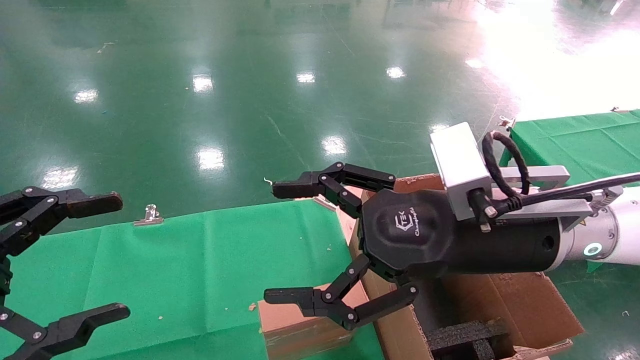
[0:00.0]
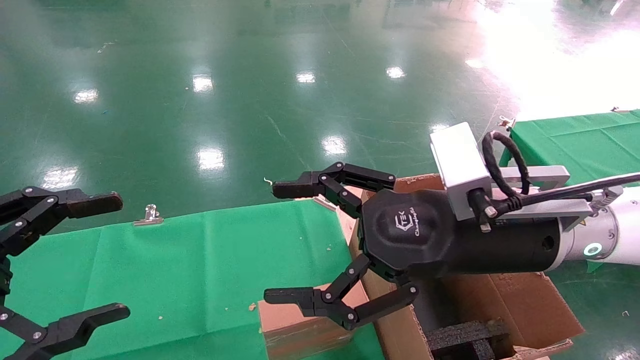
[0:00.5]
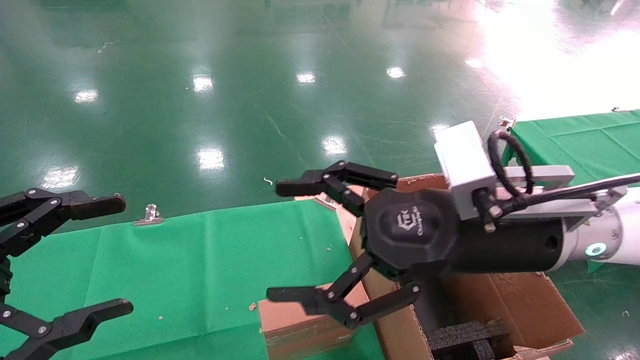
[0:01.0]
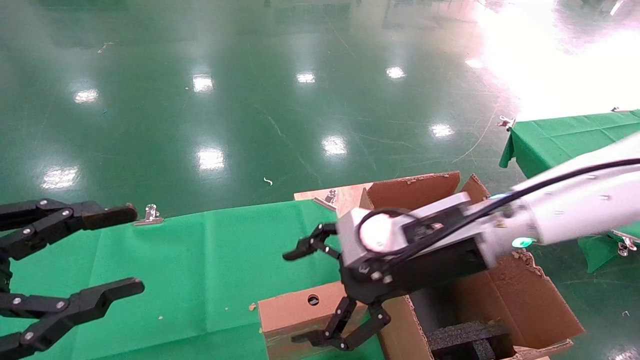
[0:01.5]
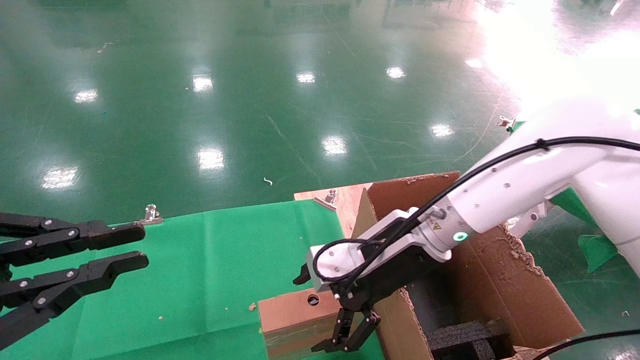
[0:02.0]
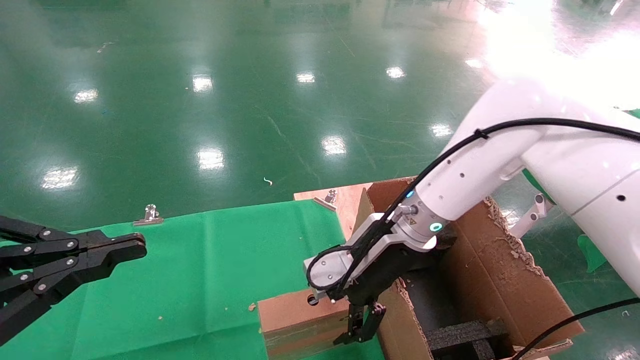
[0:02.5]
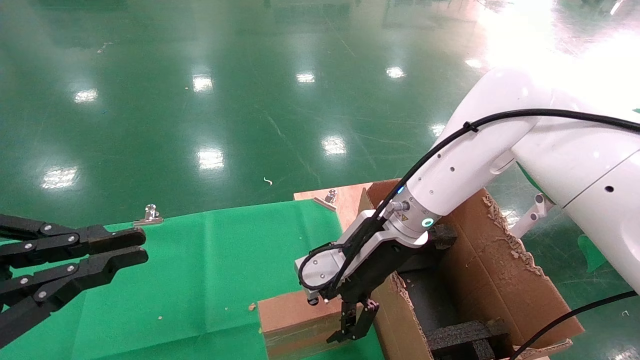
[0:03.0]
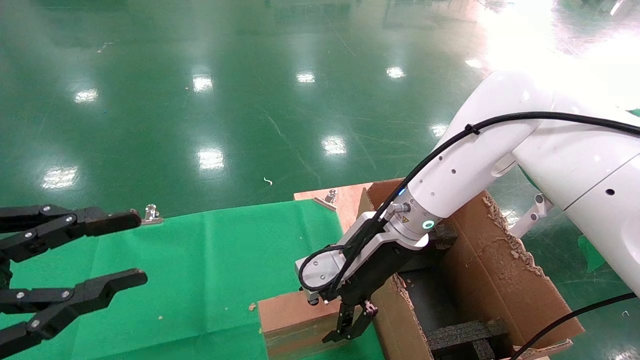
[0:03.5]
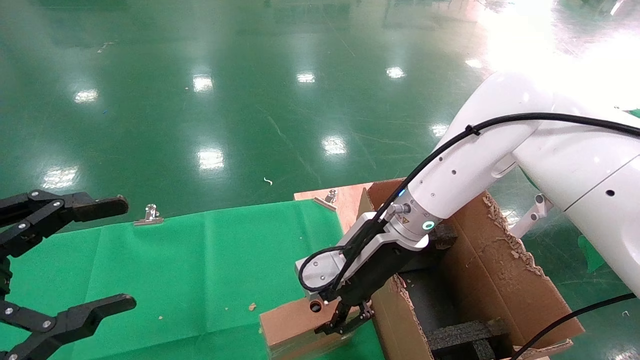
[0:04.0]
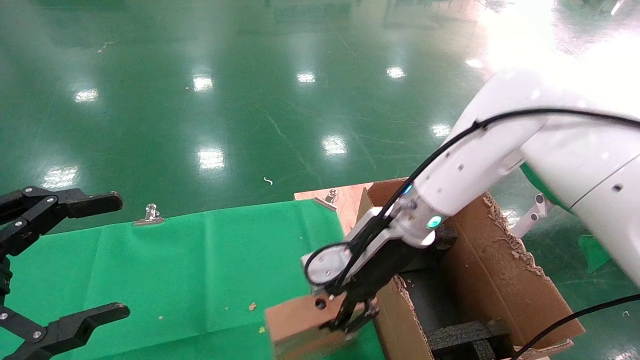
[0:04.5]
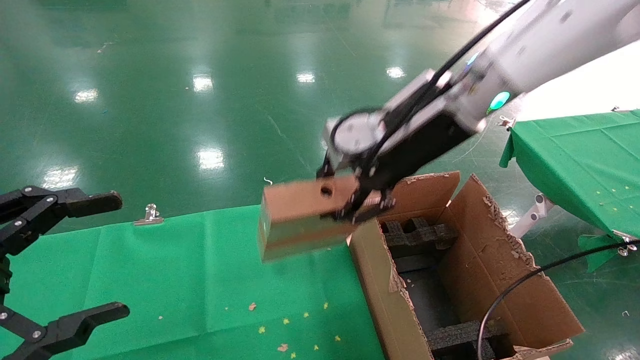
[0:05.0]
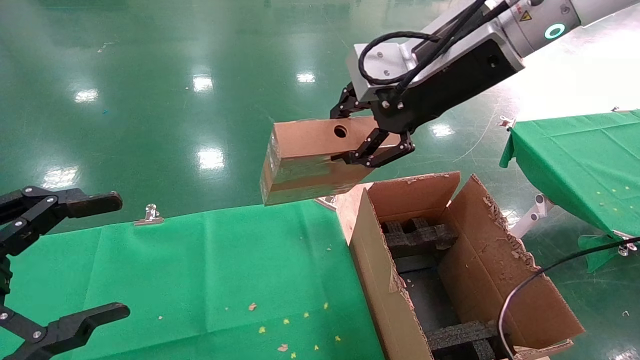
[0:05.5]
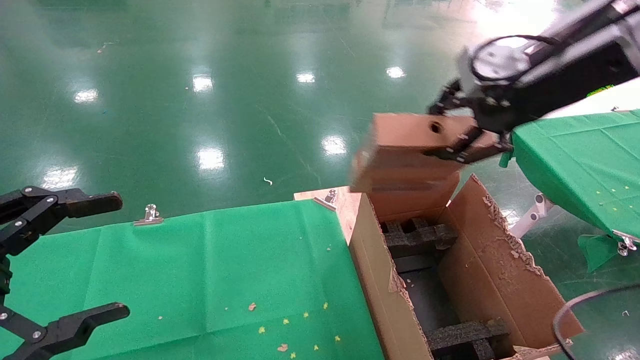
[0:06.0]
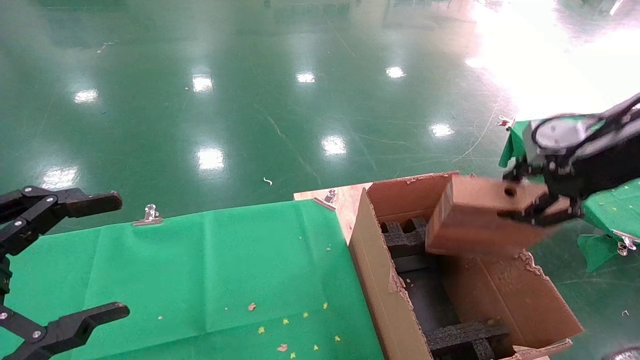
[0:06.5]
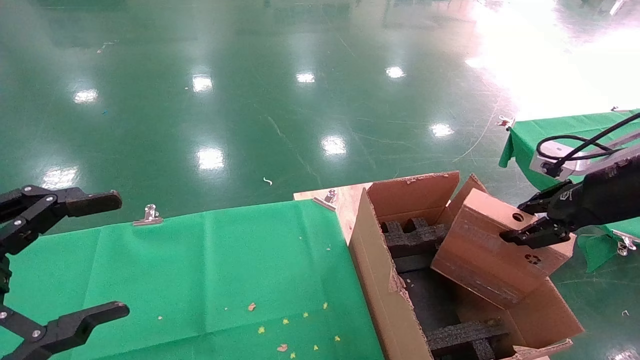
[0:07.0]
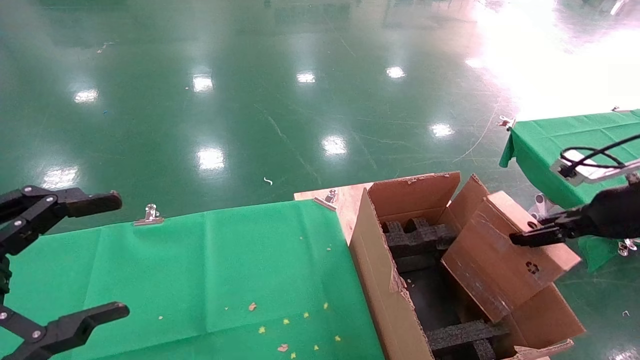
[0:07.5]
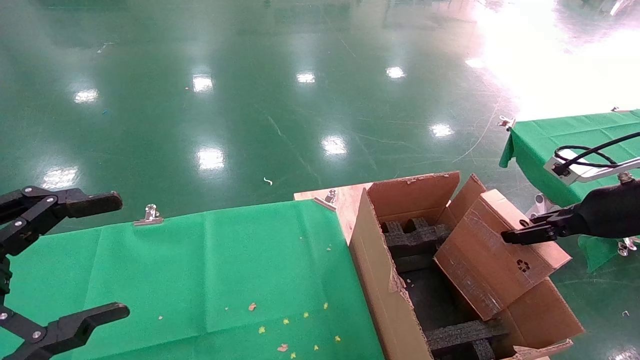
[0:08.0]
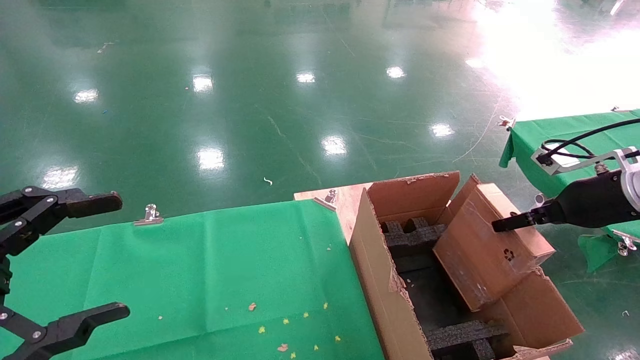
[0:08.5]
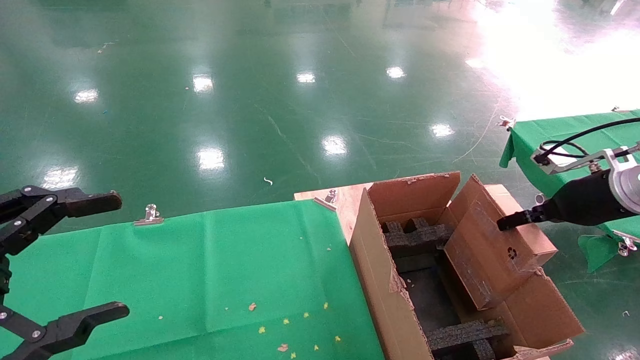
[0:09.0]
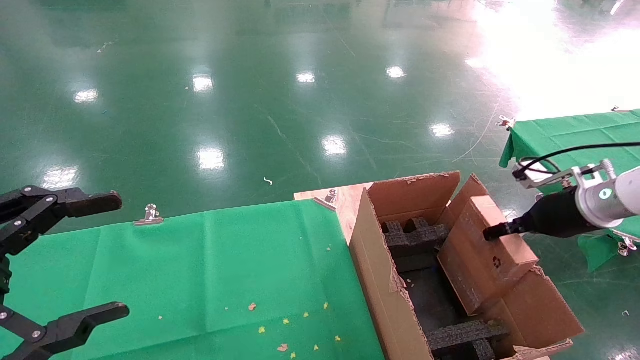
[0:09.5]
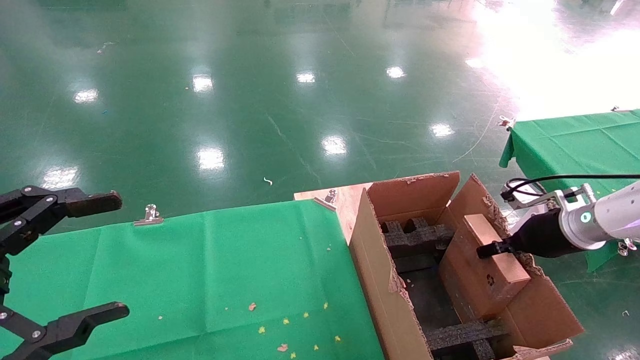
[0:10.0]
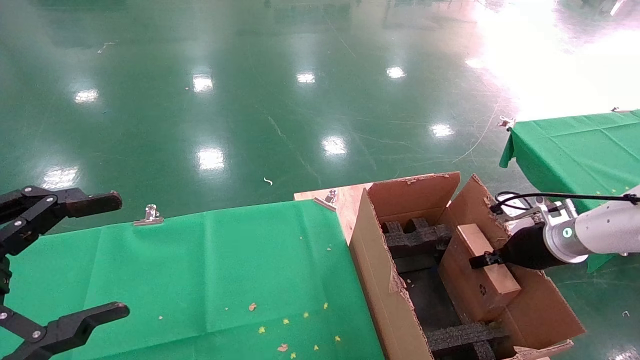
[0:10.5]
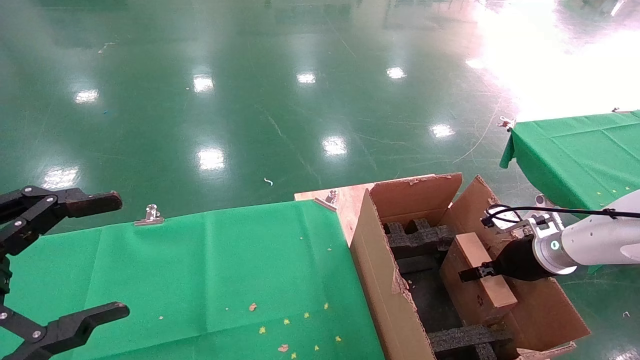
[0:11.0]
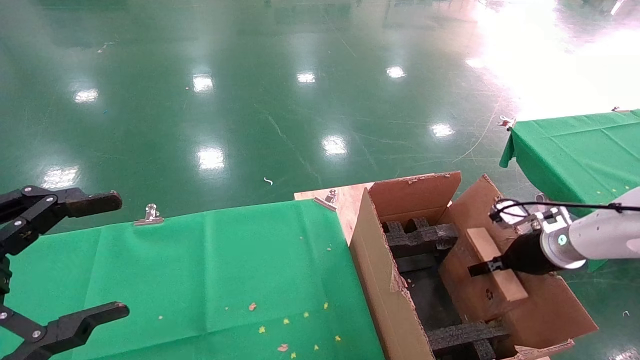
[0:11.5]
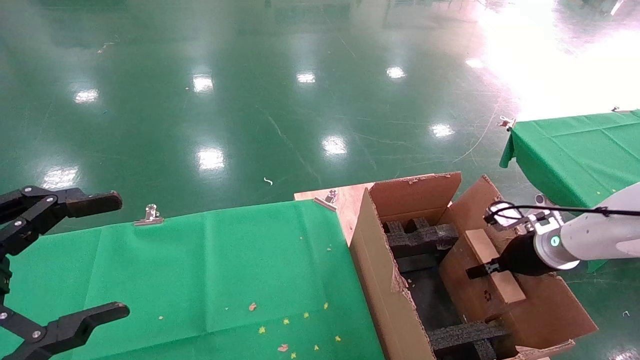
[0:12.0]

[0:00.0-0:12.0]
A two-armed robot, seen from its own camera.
Task of the whole recording: using a robotic arm to pick up a cardboard box and palace it the carton.
Step, 0:01.5 to 0:03.5: Pick up the mouse and the power cord paper box.
0:00.0 to 0:02.0: The right gripper heads forward and downward, covering roughly 10 cm; the left gripper closes up.
0:02.0 to 0:04.0: The right gripper closes. Meanwhile the left gripper opens its fingers.
0:04.0 to 0:06.0: The right gripper is displaced upward and to the right by some 30 cm.
0:06.0 to 0:08.0: The right gripper is displaced downward and to the right by about 25 cm.
0:08.0 to 0:10.0: The right gripper travels downward and forward by approximately 10 cm.
0:10.0 to 0:12.0: The right gripper goes about 5 cm downward.

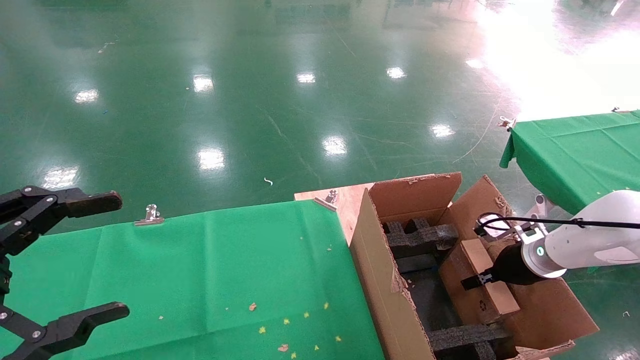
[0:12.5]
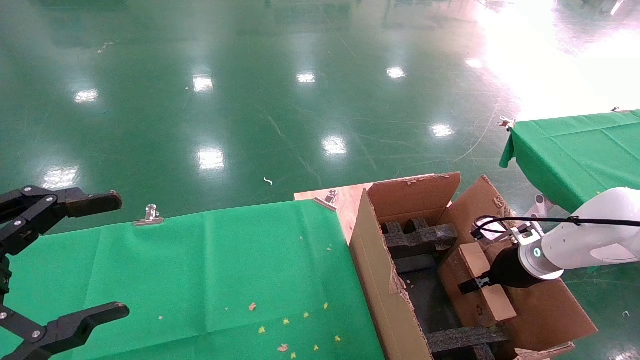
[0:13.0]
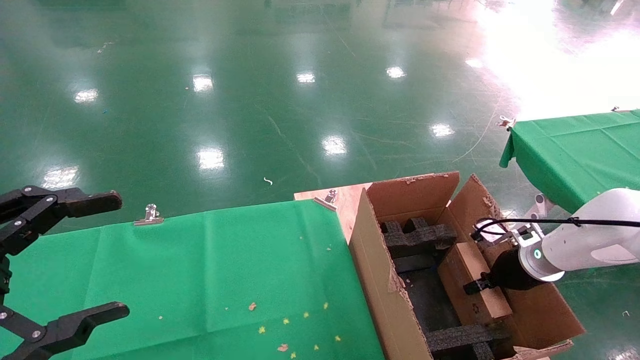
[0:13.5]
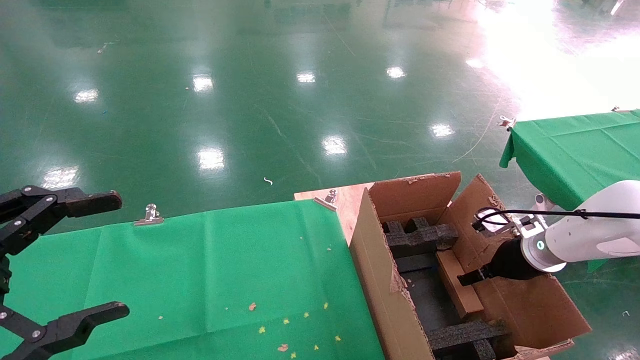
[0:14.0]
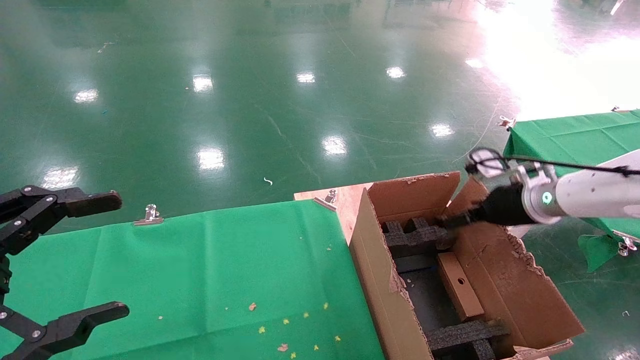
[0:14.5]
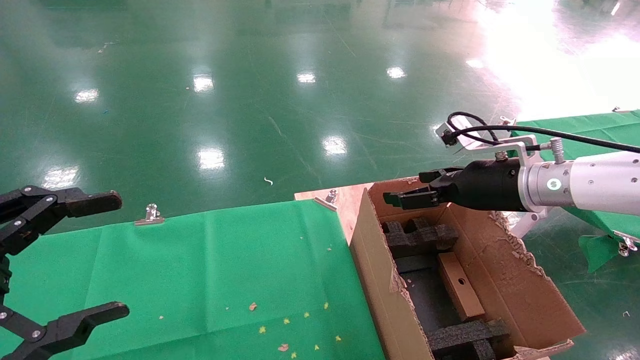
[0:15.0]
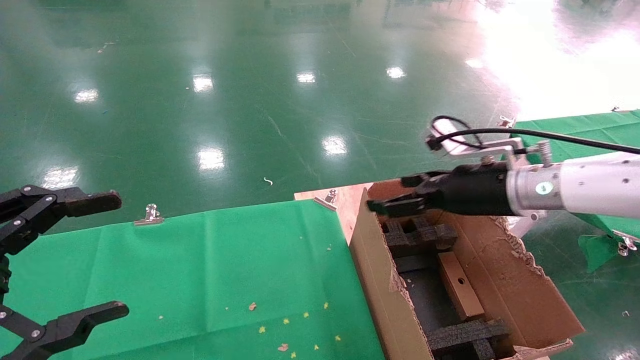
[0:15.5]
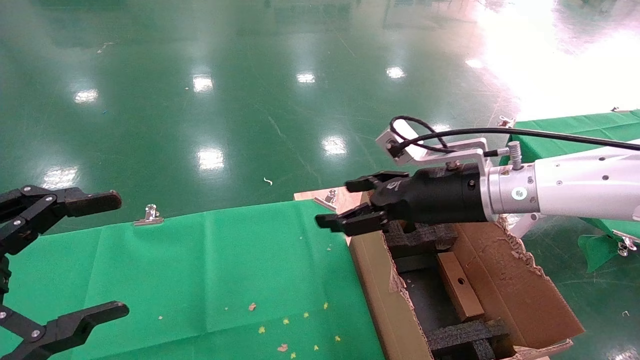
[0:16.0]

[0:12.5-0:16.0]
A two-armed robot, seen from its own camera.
Task of the whole recording: using a robotic arm to pick up a cardboard box and palace it the carton.
Step, 0:12.5 to 0:14.5: Place the mouse and the power cord paper box into the container.
0:12.5 to 0:14.5: The right gripper heads upward, covering roughly 10 cm, and opens.
0:14.5 to 0:16.0: The right gripper is displaced to the left and upward by approximately 15 cm.
